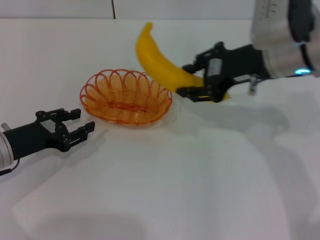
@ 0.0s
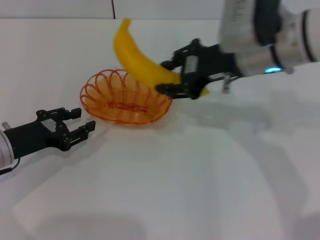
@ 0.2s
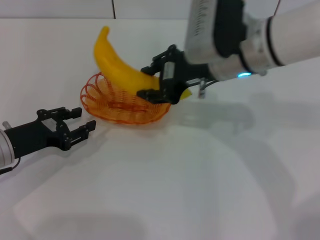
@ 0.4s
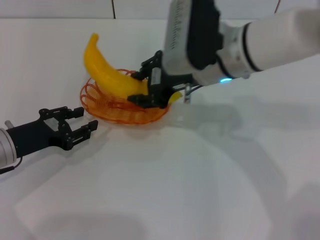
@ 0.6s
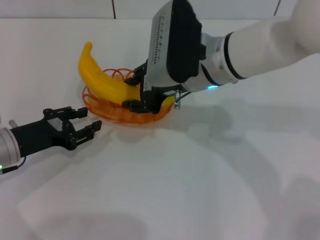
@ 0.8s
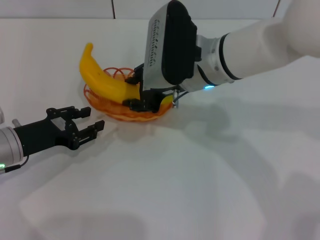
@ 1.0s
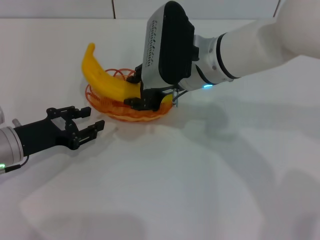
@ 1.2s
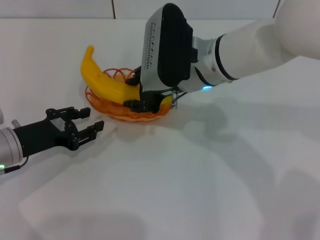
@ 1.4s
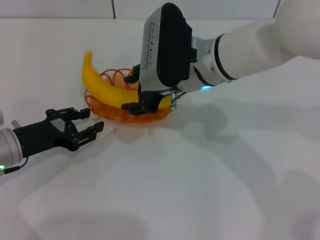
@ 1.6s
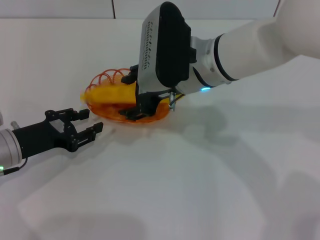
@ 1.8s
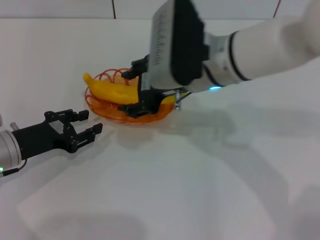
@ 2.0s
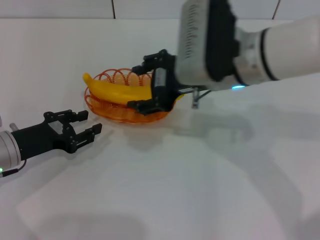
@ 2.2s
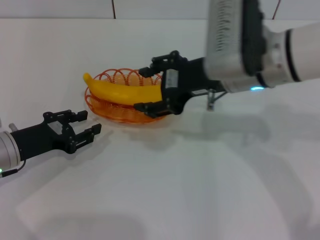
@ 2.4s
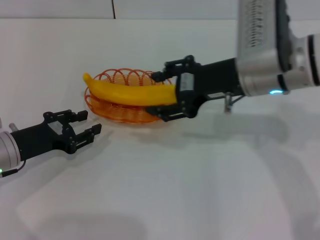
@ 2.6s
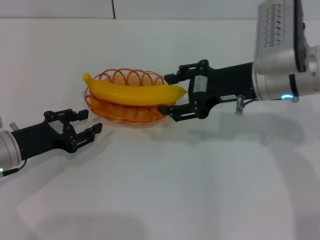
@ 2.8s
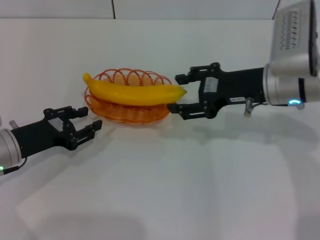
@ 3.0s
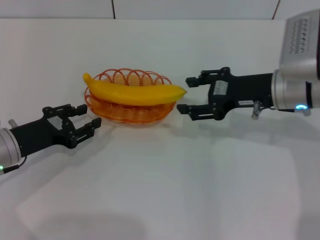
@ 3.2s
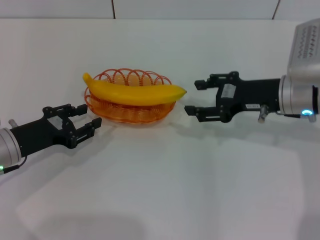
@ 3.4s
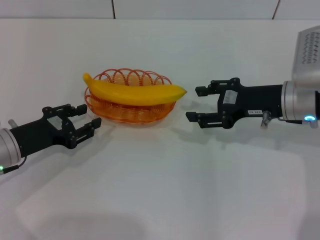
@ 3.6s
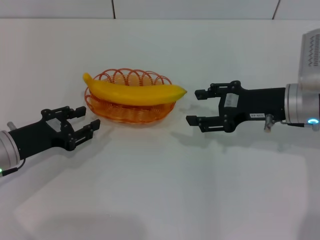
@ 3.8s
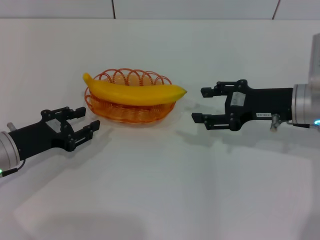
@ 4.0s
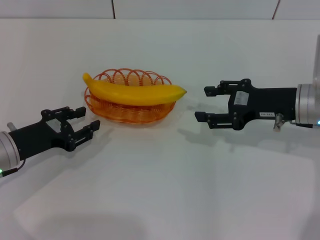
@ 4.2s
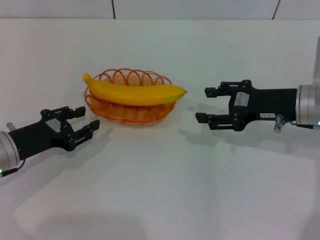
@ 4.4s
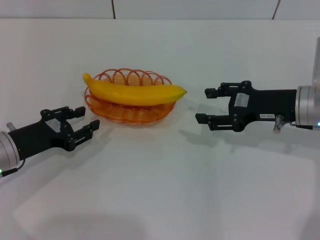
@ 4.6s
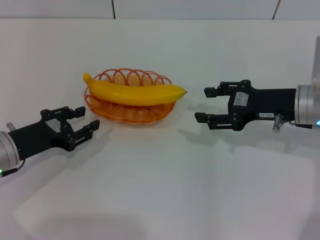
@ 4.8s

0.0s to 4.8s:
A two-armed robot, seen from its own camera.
Step, 0.0s to 3.2s: Place the banana into the basket with the right gripper.
0.0s to 1.6s: The right gripper goes some 10 cm to the left.
1.6s to 3.2s: The right gripper moves to the right, approximately 15 cm.
3.2s to 4.8s: The grippers move only a little.
